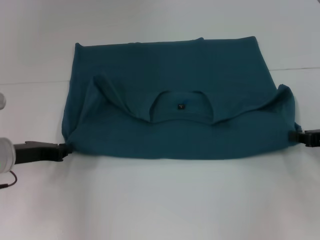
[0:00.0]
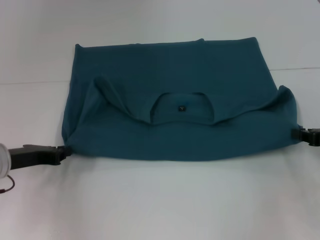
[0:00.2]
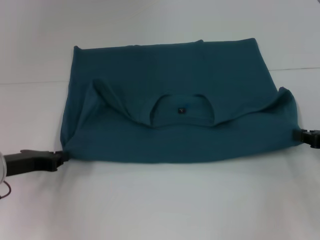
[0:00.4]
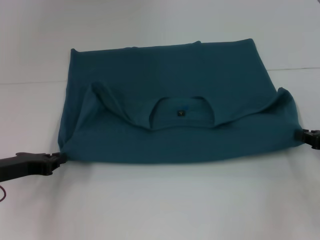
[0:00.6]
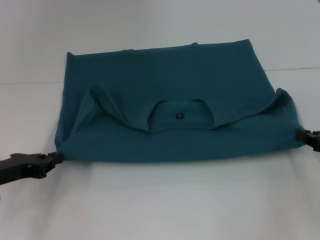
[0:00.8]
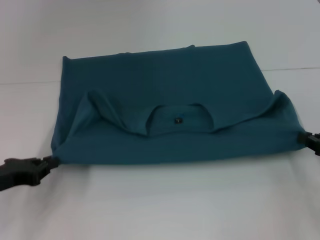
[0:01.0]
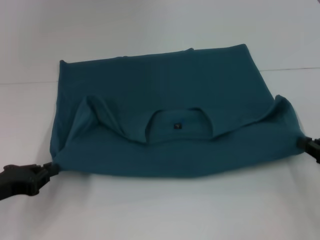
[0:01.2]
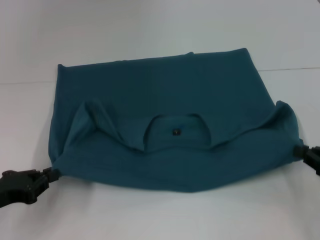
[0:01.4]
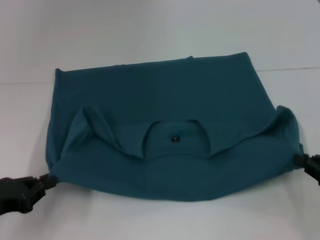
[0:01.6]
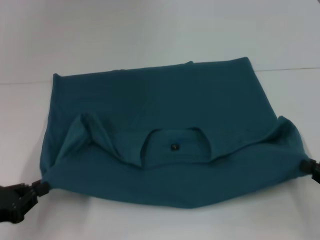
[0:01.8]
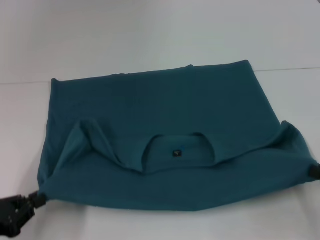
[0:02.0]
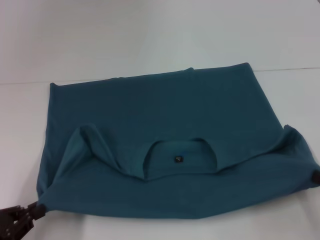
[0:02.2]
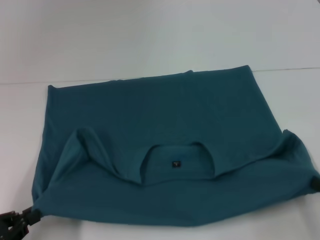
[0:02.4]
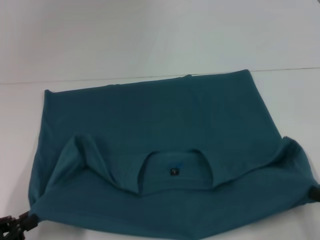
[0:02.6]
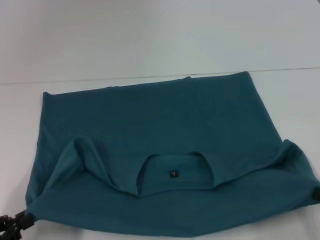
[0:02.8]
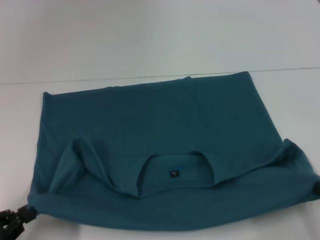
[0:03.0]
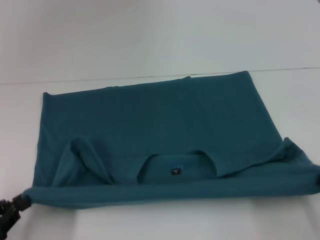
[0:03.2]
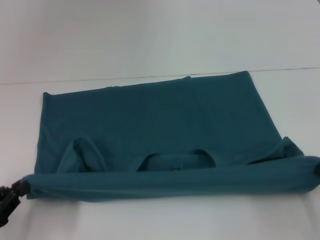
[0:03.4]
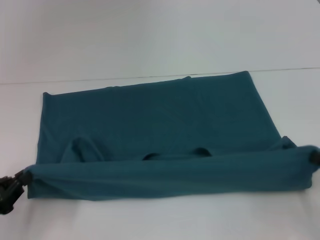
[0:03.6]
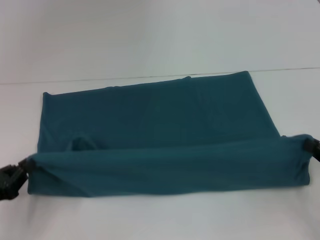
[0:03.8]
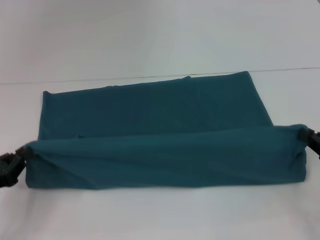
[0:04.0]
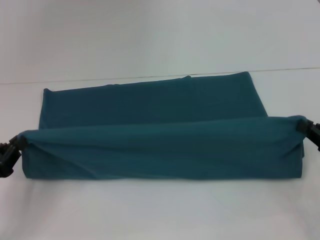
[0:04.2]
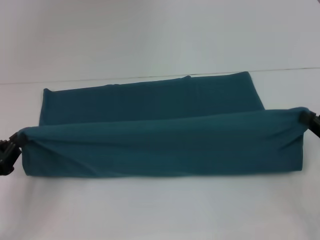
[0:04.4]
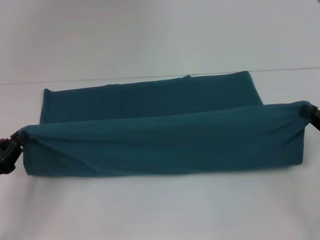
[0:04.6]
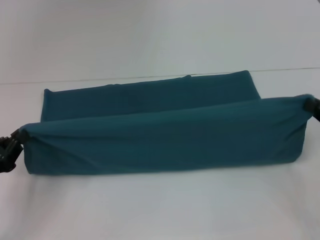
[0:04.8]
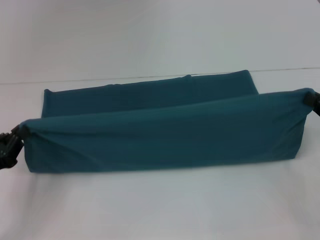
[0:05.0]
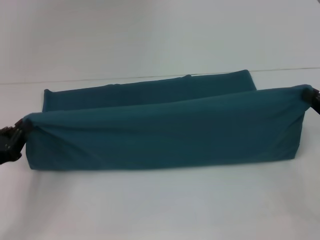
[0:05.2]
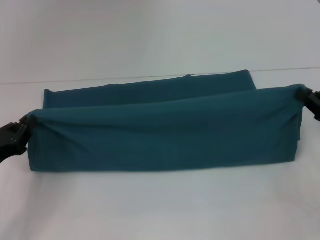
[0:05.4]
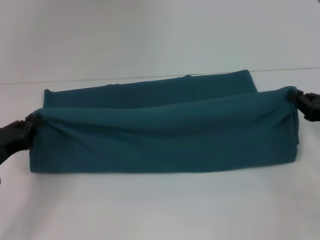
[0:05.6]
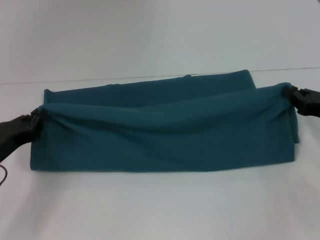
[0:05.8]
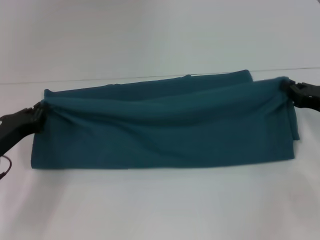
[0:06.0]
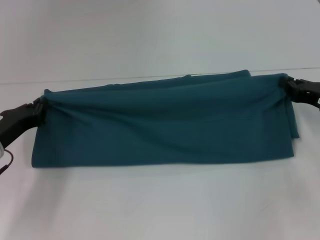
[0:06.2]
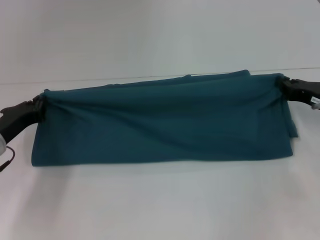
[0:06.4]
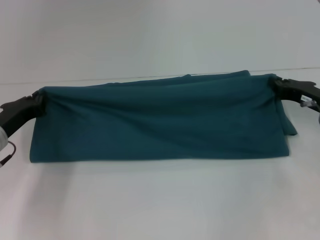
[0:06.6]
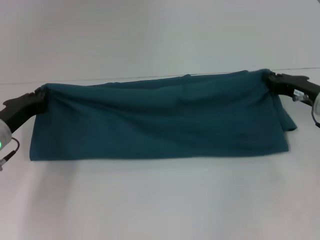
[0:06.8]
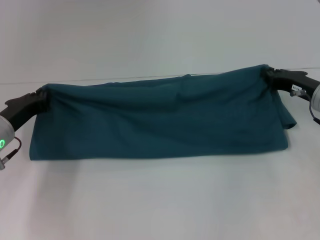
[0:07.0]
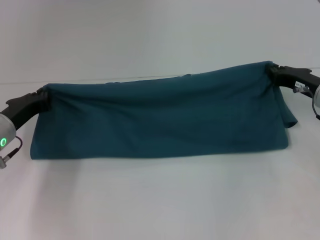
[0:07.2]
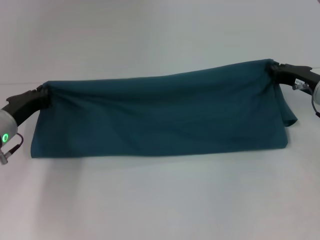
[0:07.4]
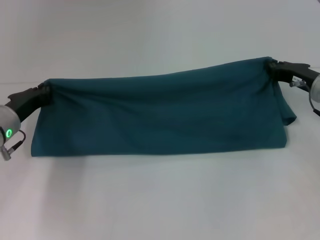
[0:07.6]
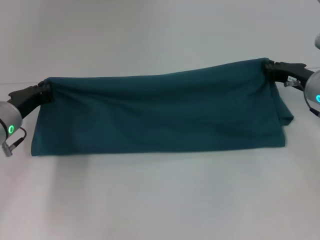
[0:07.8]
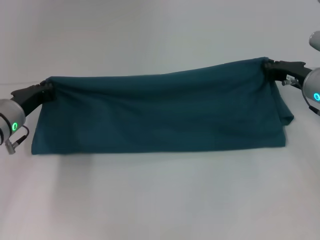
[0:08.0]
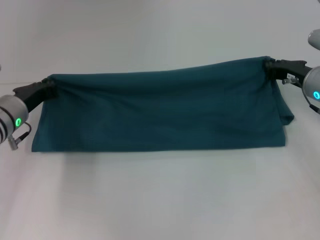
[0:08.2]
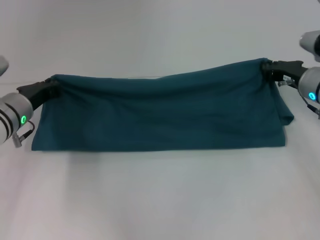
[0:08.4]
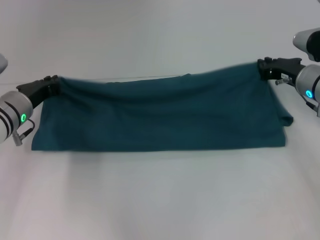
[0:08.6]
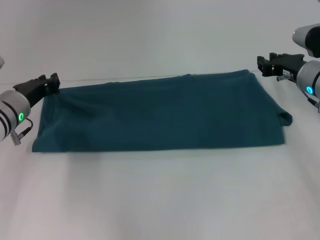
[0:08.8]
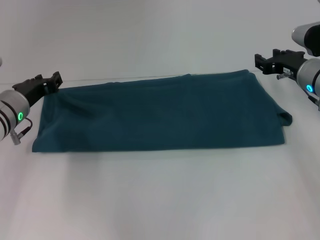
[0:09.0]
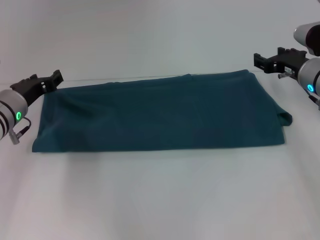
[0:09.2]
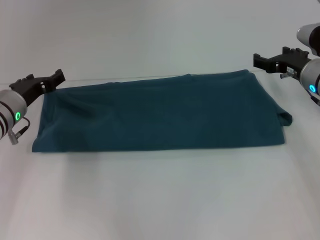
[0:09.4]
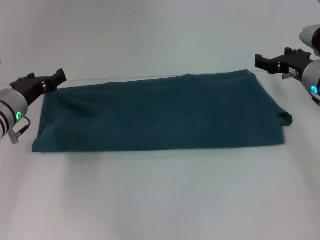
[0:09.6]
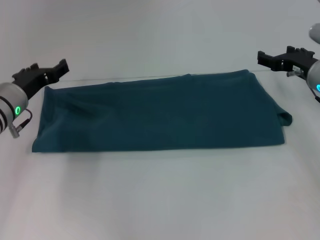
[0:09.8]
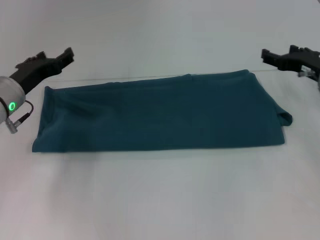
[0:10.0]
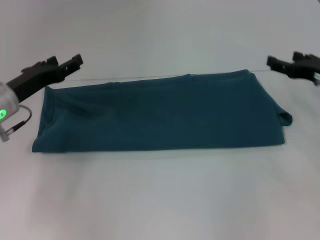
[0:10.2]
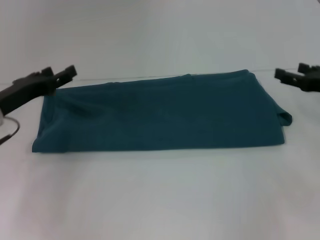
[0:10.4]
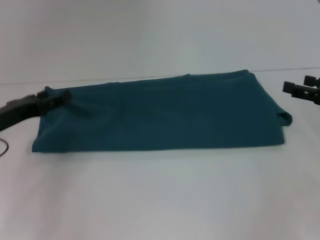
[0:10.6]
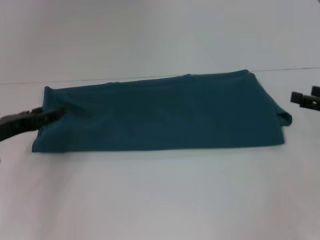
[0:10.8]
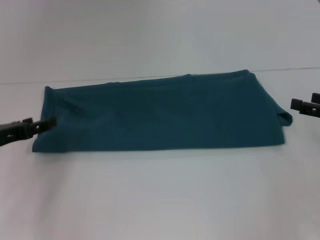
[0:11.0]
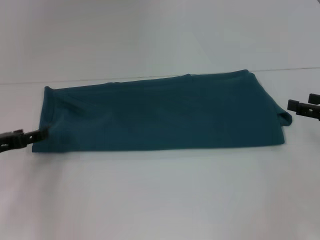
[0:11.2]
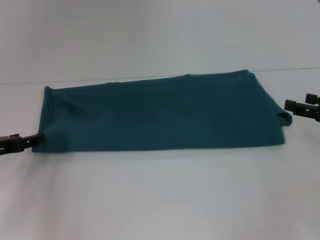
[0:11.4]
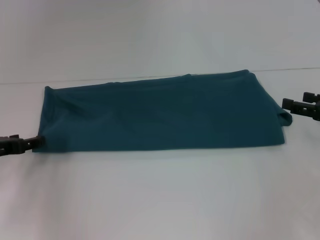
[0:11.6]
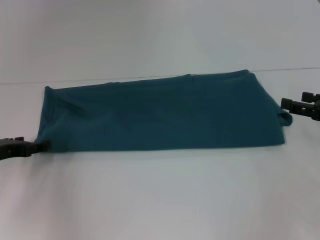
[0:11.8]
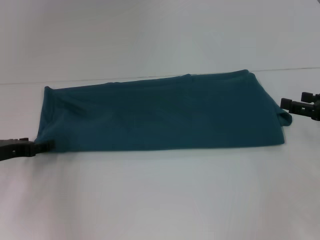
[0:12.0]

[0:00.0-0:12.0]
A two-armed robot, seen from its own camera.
Step, 0:00.0 to 0:02.2: Pull the clothes with your left hand.
Step, 0:00.0 to 0:02.2: Pull the clothes with your right hand.
Step, 0:02.4 to 0:09.2: Fold the clothes to the left.
Step, 0:02.4 to 0:09.2: Fold the clothes to the right.
0:00.0 to 0:01.6: The right gripper goes about 10 cm backward, while the left gripper is displaced backward and to the left by about 10 cm.
0:01.6 to 0:03.0: The two grippers go some 5 cm backward.
0:03.0 to 0:04.4: The grippers both shift forward by roughly 10 cm.
0:04.4 to 0:06.0: The two grippers go approximately 10 cm forward.
0:06.0 to 0:07.6: The two grippers go about 5 cm forward.
0:07.6 to 0:09.0: There are only small adjustments of the grippers.
0:09.0 to 0:10.4: The right gripper travels backward and to the right by approximately 10 cm, and opens its fingers. The left gripper changes place by roughly 5 cm, and opens up.
0:10.4 to 0:12.0: The left gripper moves about 5 cm.

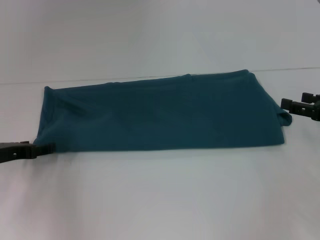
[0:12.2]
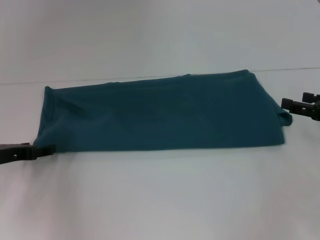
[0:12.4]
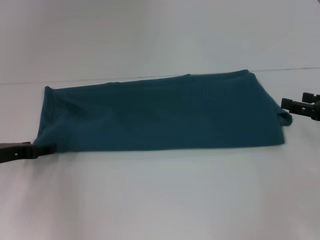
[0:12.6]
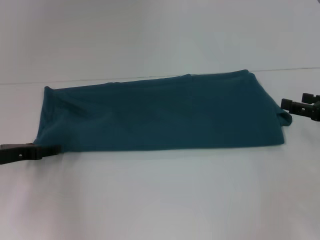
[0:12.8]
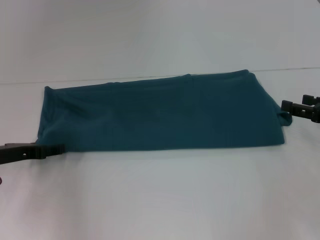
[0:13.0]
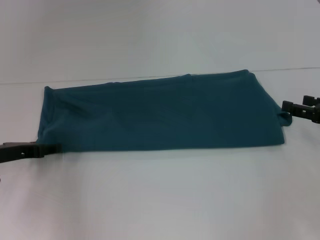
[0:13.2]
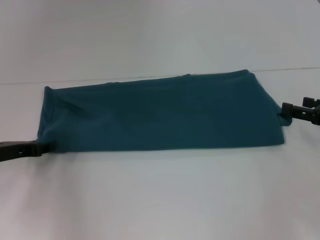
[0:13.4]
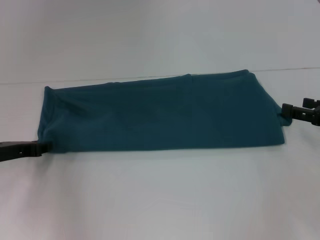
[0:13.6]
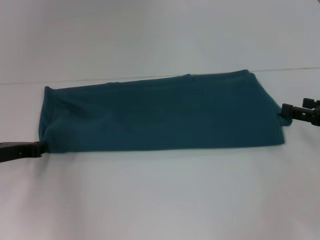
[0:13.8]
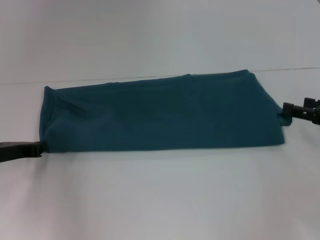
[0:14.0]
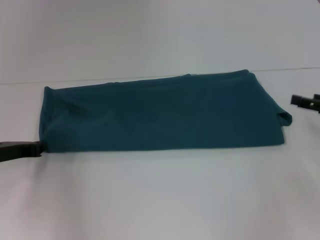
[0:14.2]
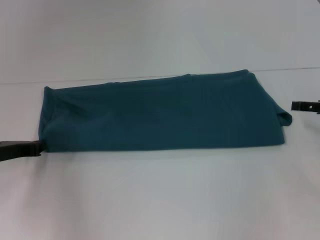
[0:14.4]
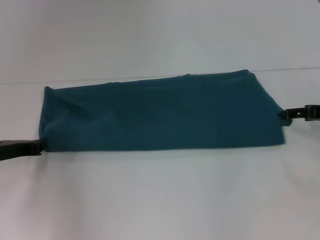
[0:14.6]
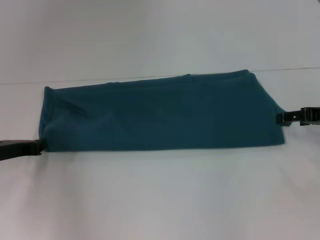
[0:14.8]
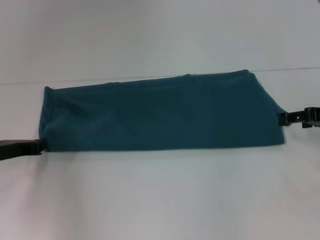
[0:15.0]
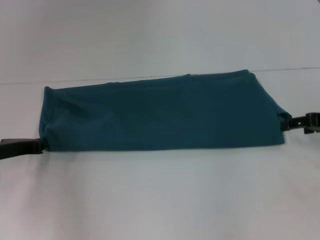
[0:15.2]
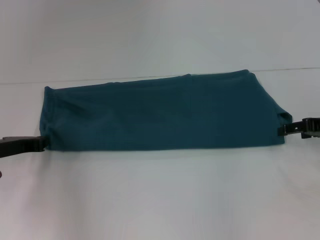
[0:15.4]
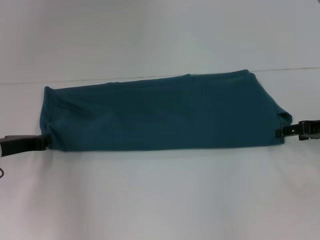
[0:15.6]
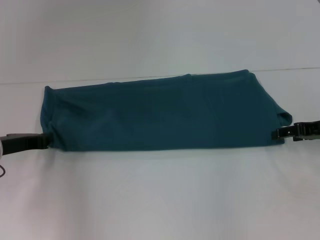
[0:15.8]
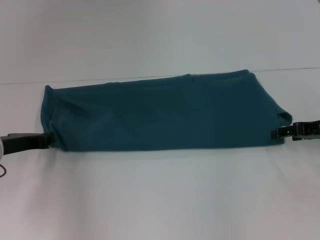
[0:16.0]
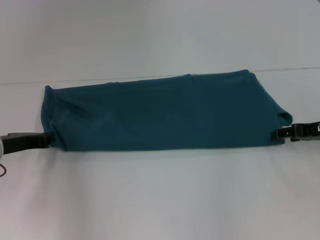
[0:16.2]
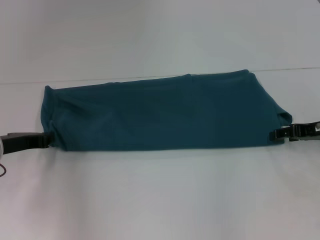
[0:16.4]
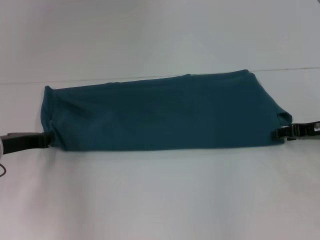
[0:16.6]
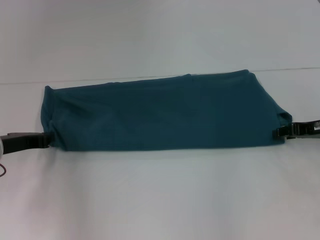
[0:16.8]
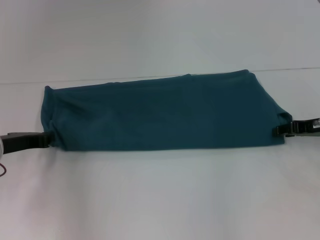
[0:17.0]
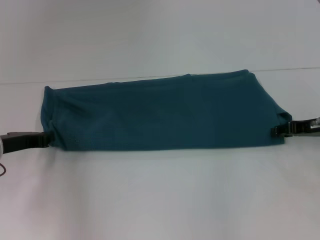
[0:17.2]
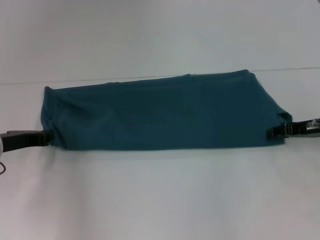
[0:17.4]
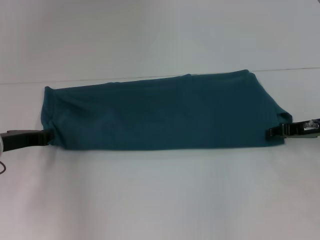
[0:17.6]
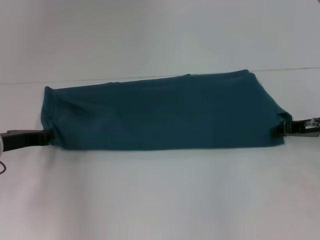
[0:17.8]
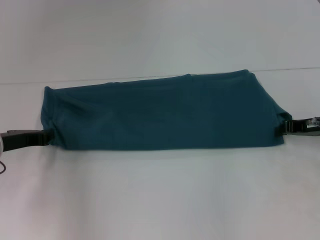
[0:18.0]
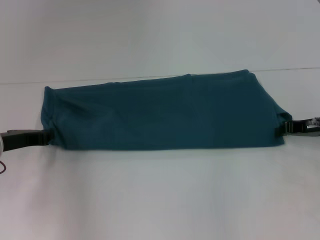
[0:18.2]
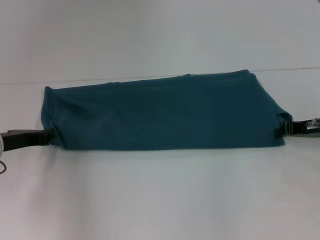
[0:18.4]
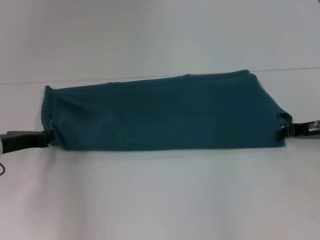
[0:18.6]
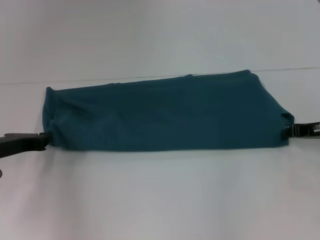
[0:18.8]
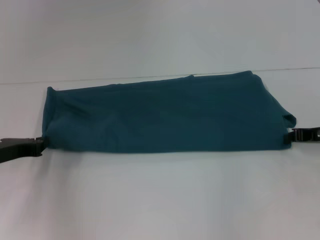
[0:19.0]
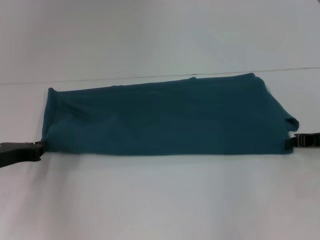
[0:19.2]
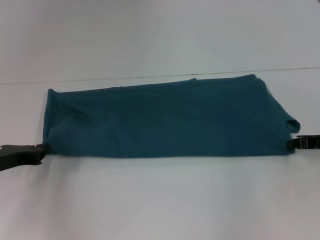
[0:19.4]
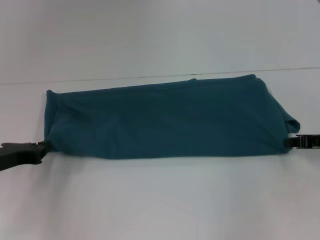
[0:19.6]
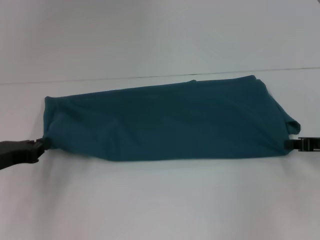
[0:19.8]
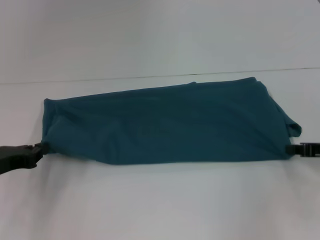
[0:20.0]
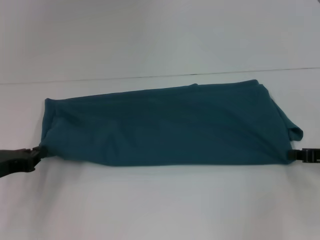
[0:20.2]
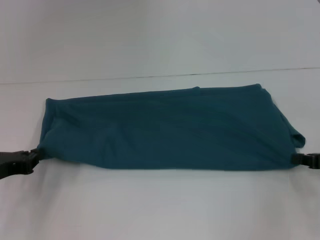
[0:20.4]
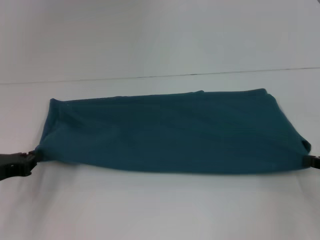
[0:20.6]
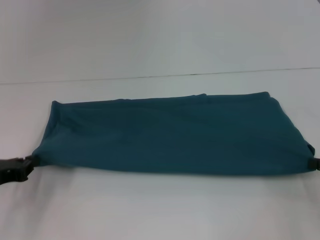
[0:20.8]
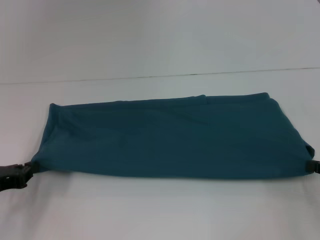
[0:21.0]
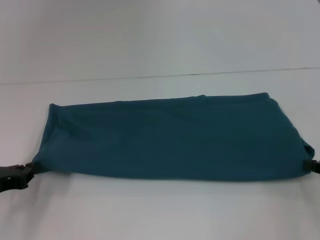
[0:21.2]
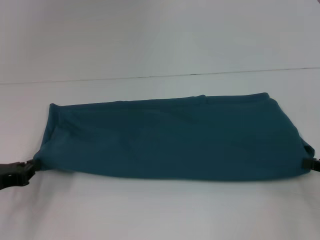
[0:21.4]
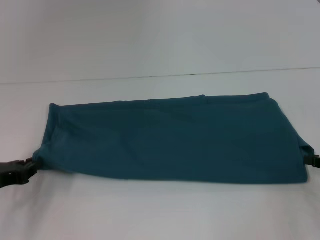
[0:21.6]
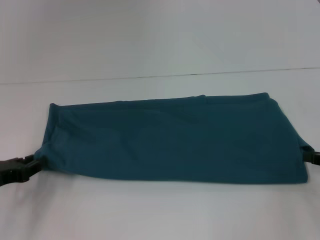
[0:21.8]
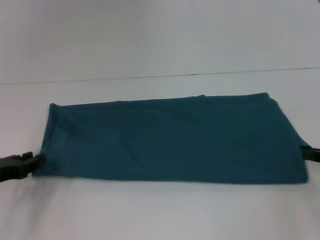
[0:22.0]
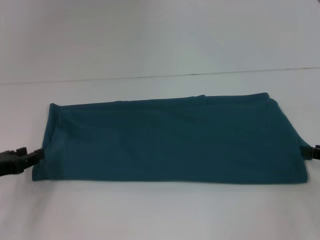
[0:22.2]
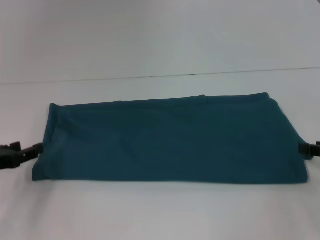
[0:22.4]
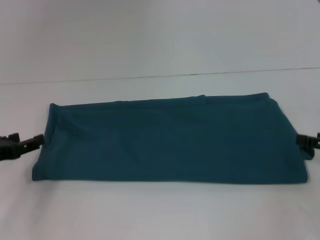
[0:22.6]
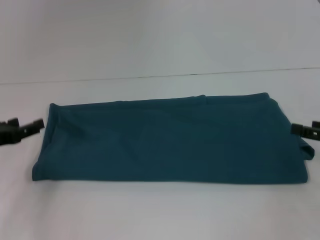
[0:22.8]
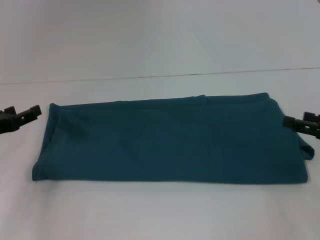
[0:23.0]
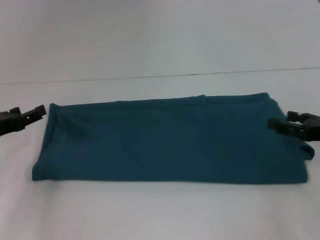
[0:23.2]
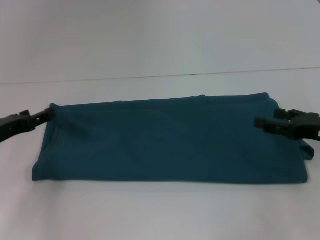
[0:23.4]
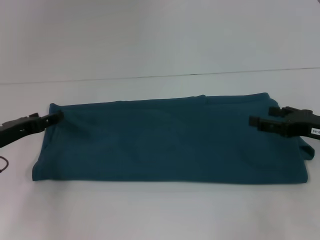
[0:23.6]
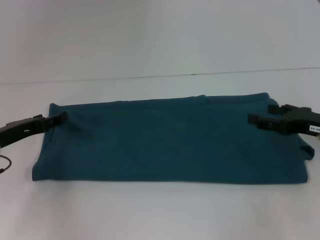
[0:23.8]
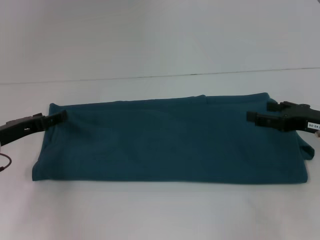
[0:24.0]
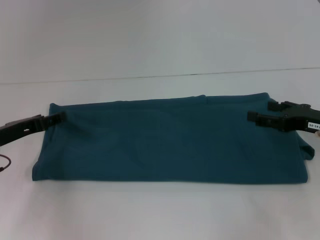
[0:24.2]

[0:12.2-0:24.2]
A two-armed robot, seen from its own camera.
Step, 0:12.2 to 0:22.4: Pull the clothes with your left hand.
Step, 0:12.2 to 0:22.4: Pull the clothes with your right hand.
0:13.8 to 0:15.2: The right gripper travels forward by some 5 cm. The left gripper closes its fingers.
0:15.2 to 0:16.6: The grippers make only small movements.
0:16.6 to 0:18.2: The right gripper closes up.
0:18.2 to 0:19.8: The right gripper is displaced backward by approximately 5 cm, while the left gripper shifts by roughly 5 cm.
0:19.8 to 0:21.2: The right gripper shifts about 5 cm backward.
0:21.2 to 0:22.6: The right gripper opens up; the left gripper opens up.
0:22.6 to 0:24.2: The right gripper shifts roughly 5 cm to the left, while the left gripper shifts by roughly 5 cm.
